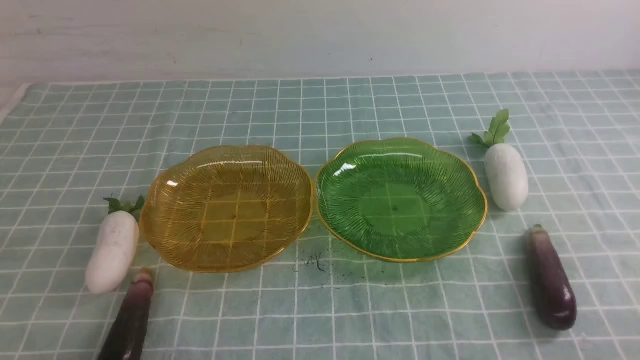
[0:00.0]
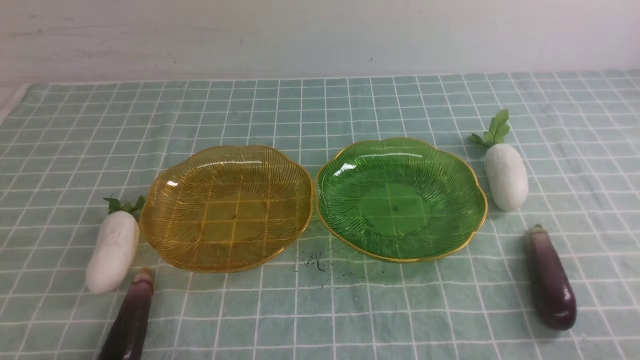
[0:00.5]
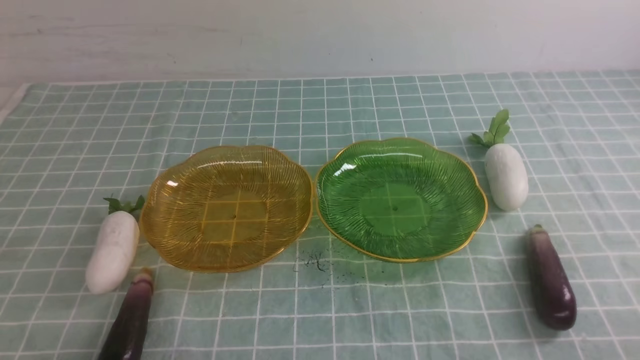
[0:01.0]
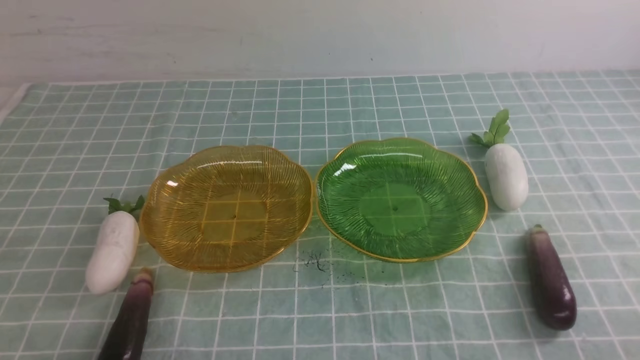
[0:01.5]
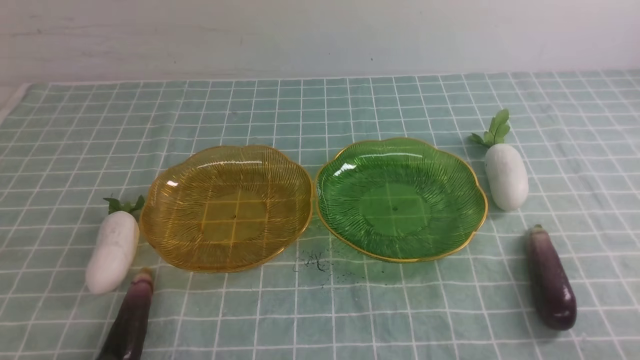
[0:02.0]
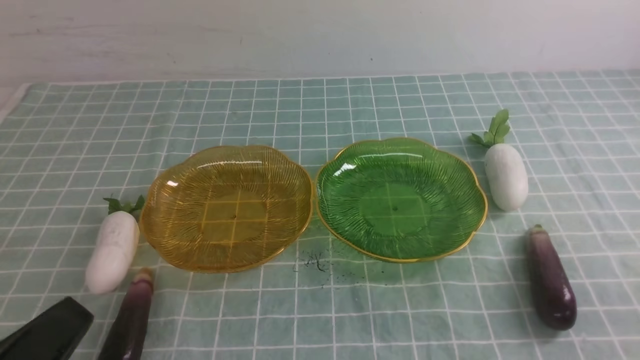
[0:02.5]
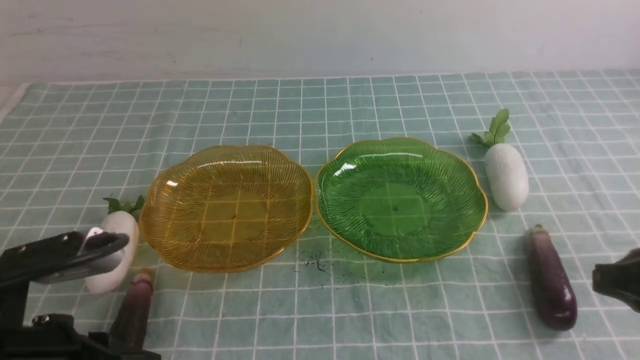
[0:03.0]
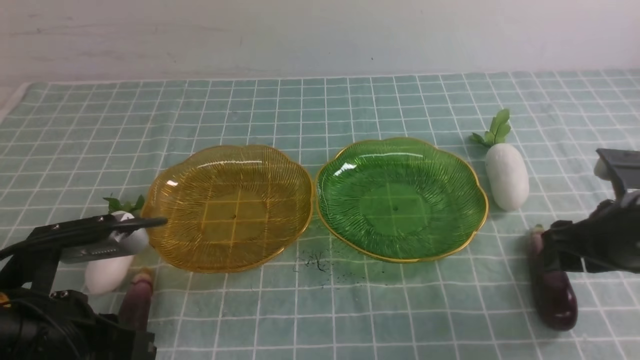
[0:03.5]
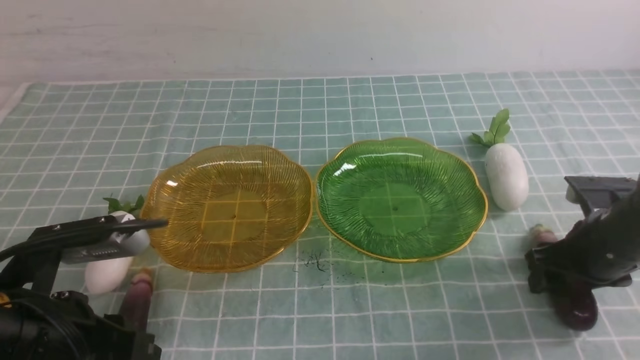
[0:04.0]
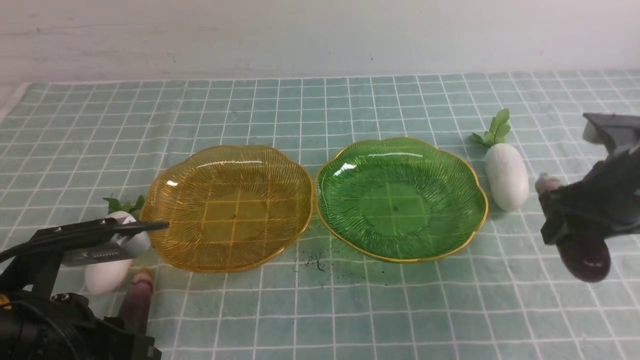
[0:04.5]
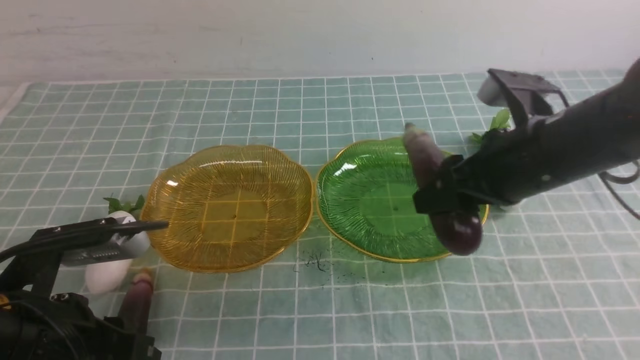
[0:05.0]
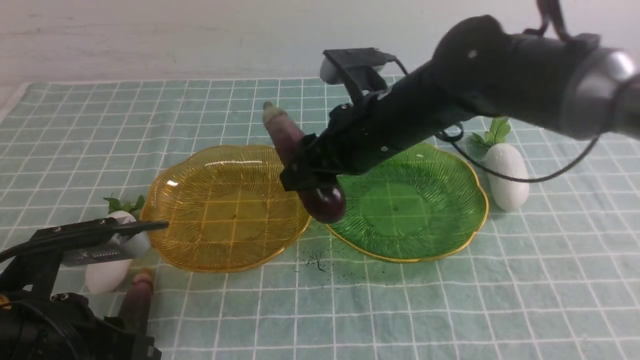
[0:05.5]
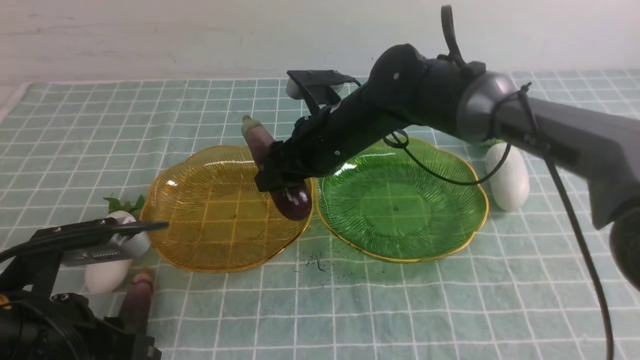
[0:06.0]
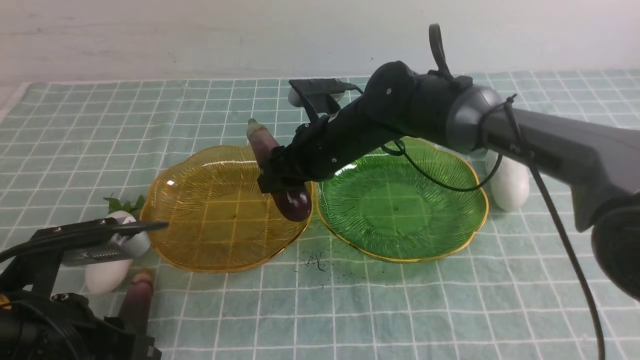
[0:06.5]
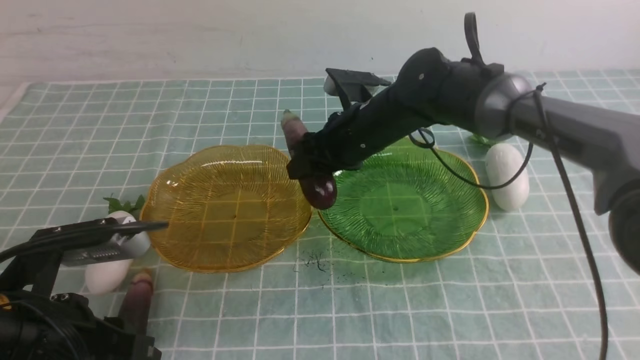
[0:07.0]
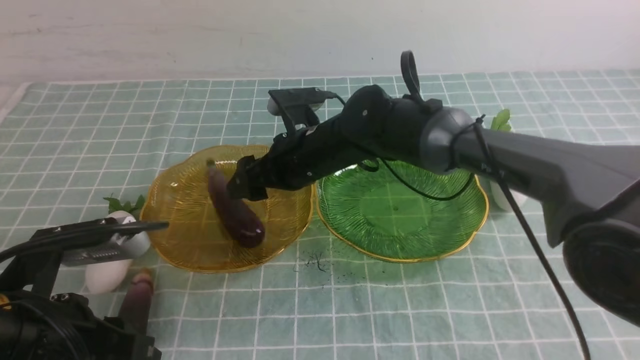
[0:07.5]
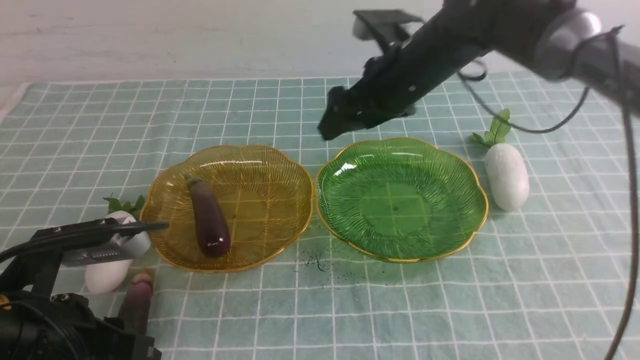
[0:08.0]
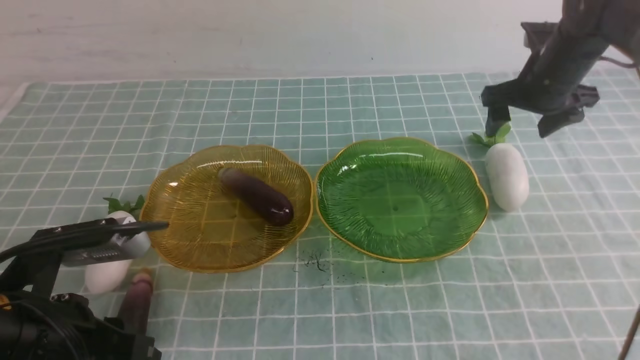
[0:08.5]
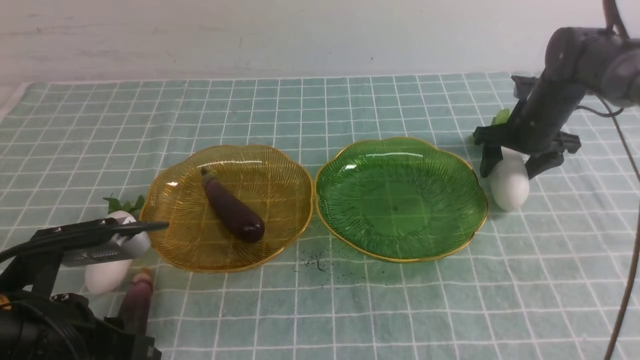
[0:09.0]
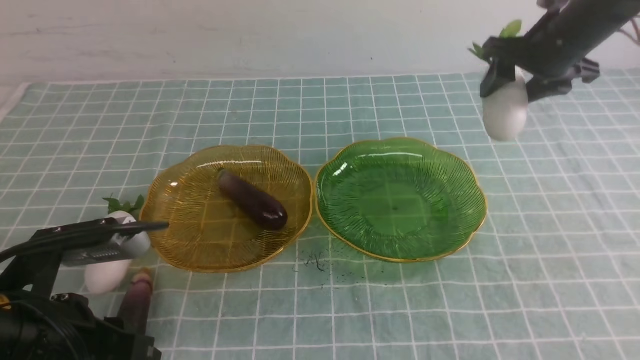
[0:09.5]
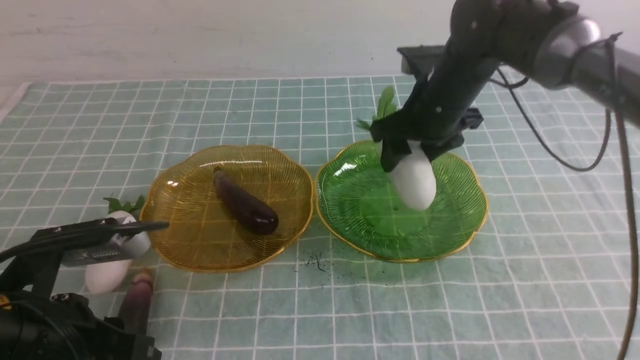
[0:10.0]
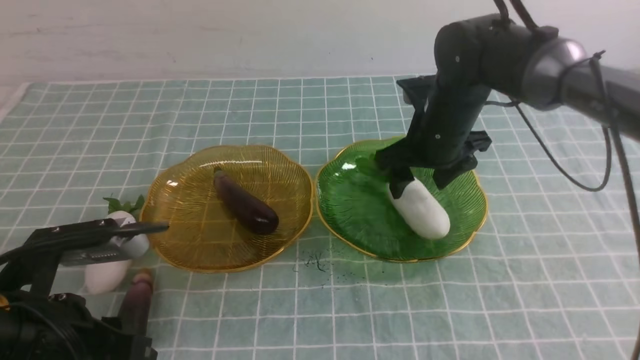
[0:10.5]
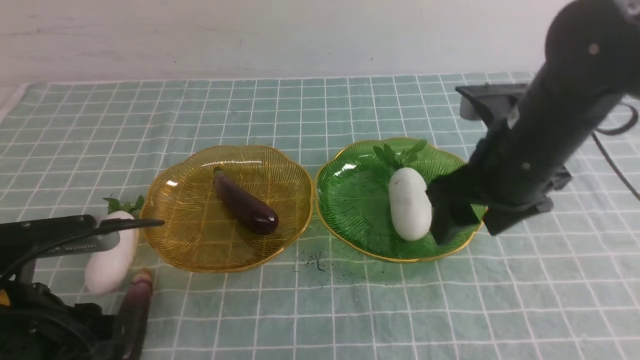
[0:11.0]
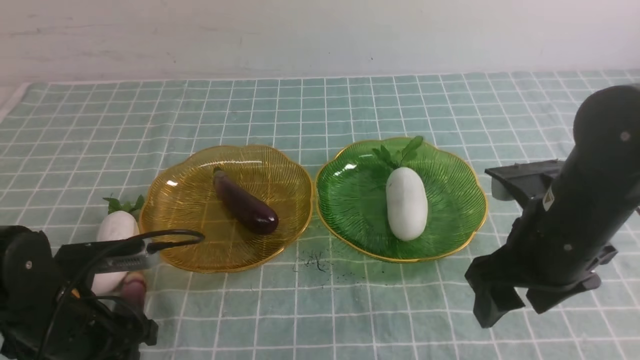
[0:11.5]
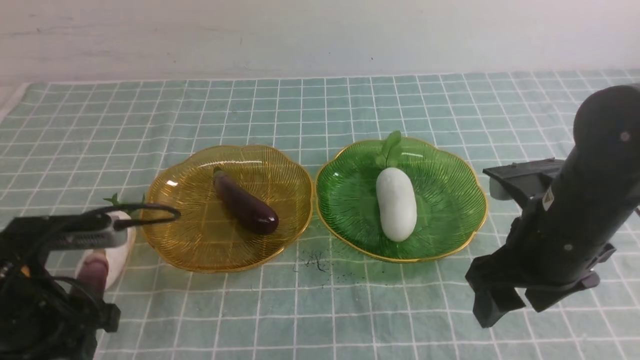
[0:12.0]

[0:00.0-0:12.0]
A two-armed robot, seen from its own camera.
Step, 0:00.0 to 0:07.5: use the right arm to grab an eggplant and put it into the left plate.
Step, 0:08.0 to 0:10.5: use the right arm to grab a radish and put it into the right plate.
0:02.0 to 0:04.0: The right gripper heads forward, covering roughly 25 cm, and opens. The left gripper heads forward and upward, covering some 10 cm.
0:04.0 to 0:06.0: The right gripper is displaced to the left by about 30 cm.
0:06.0 to 0:08.0: The right gripper travels to the right by roughly 10 cm, and opens its fingers.
0:08.0 to 0:10.0: The right gripper travels to the right and back again, about 15 cm each way.
0:10.0 to 0:12.0: The left gripper travels forward by about 5 cm, goes downward and returns, approximately 10 cm each way, and opens its fingers; the right gripper shifts about 20 cm backward.

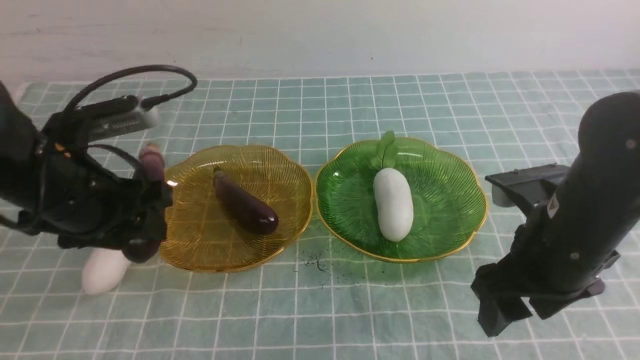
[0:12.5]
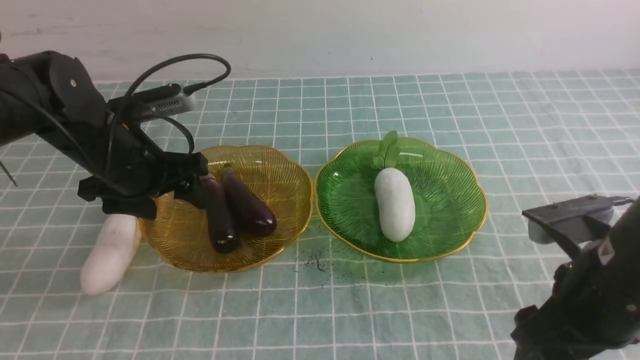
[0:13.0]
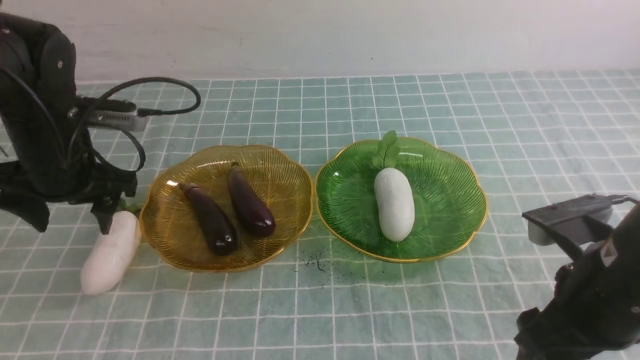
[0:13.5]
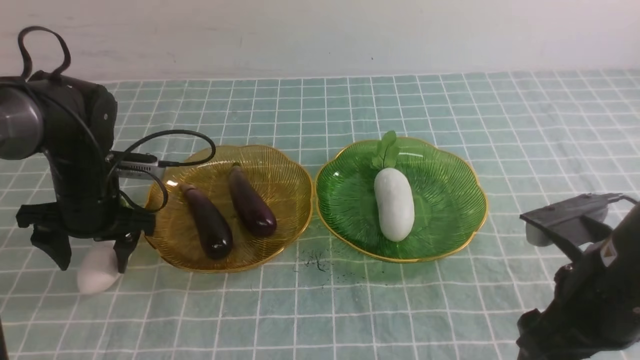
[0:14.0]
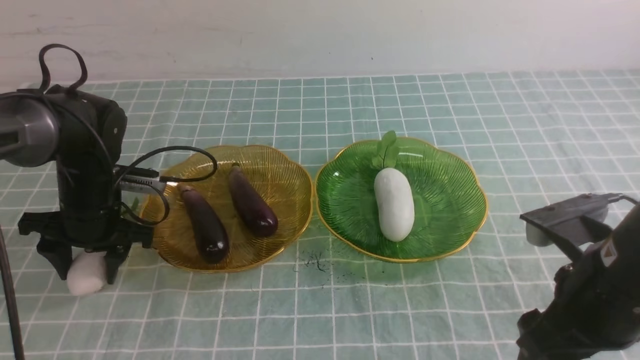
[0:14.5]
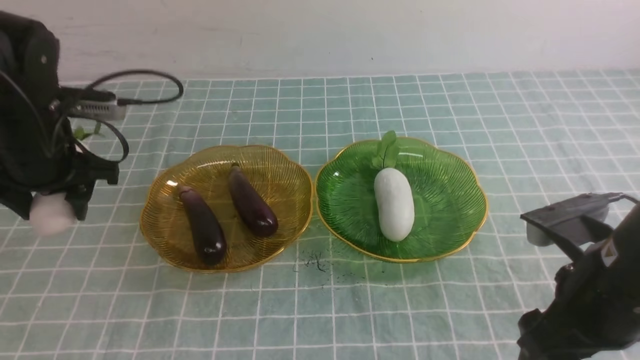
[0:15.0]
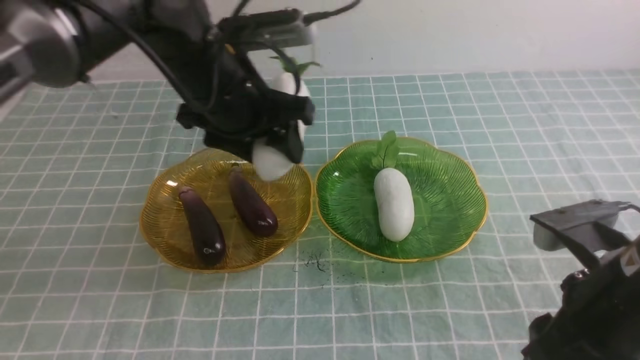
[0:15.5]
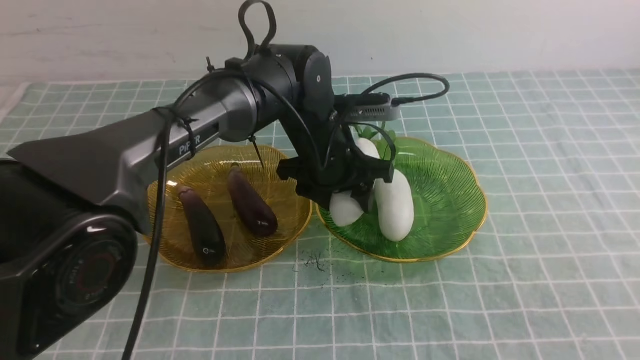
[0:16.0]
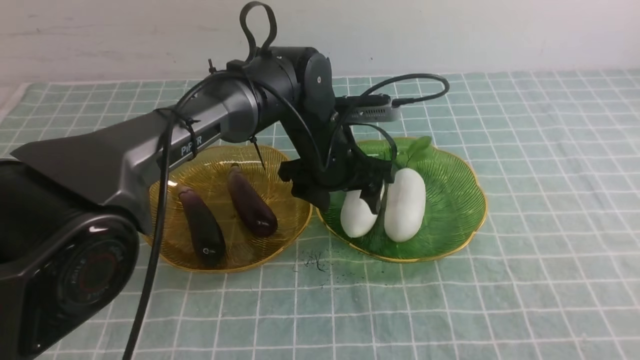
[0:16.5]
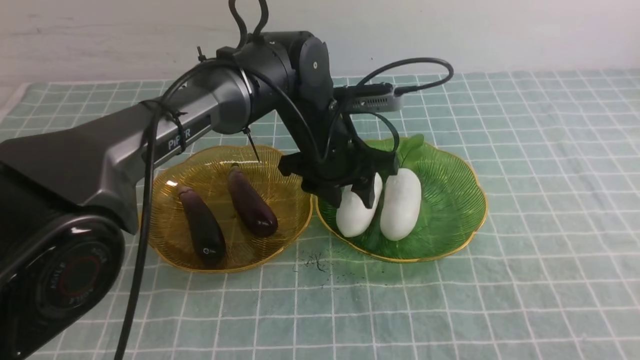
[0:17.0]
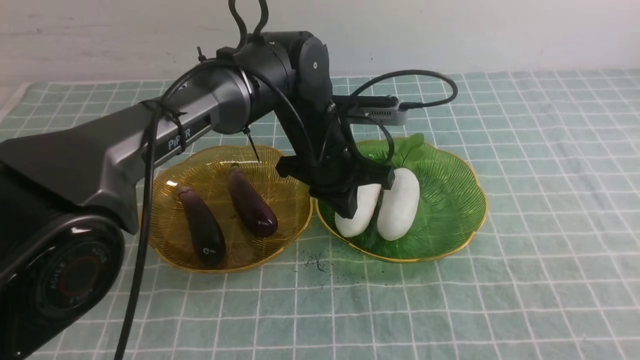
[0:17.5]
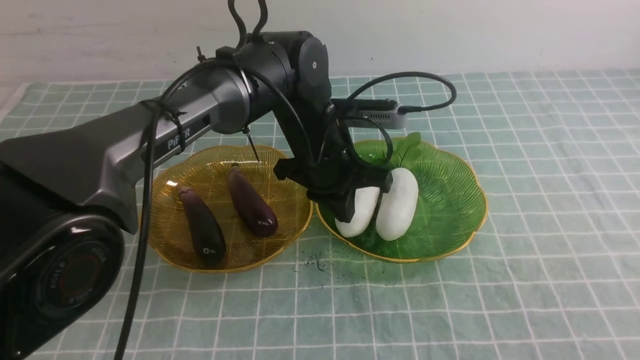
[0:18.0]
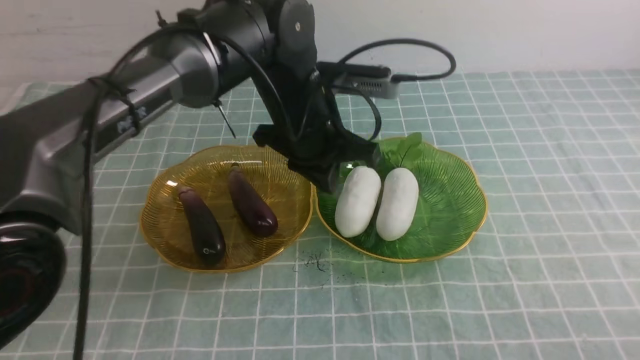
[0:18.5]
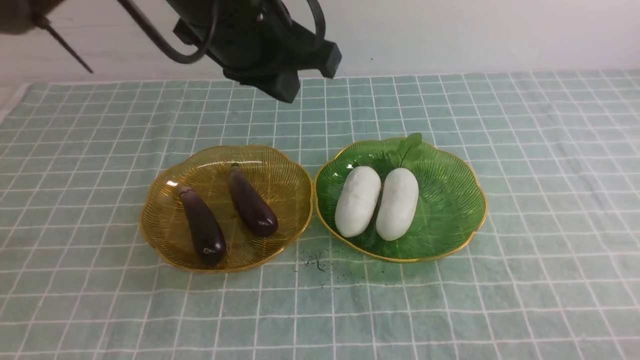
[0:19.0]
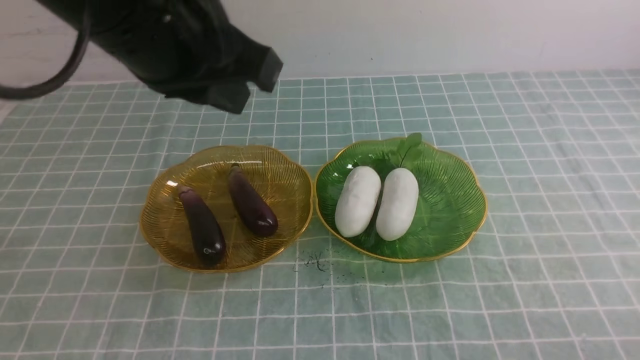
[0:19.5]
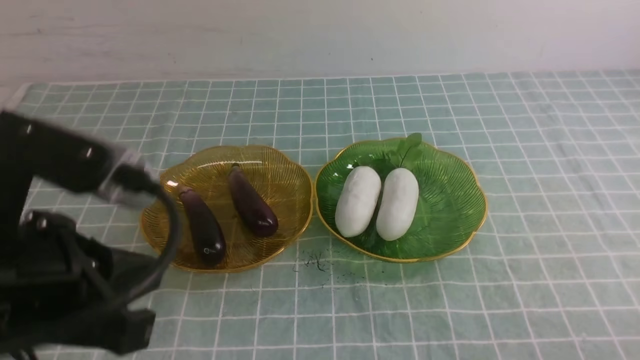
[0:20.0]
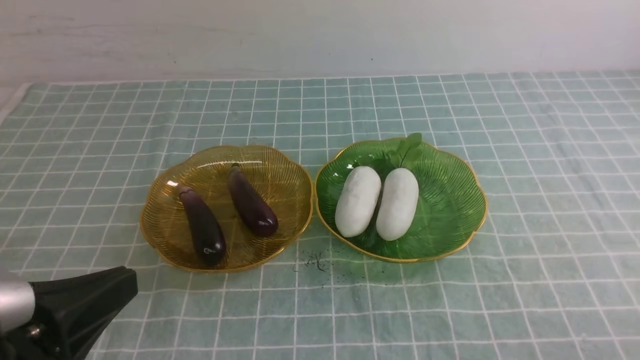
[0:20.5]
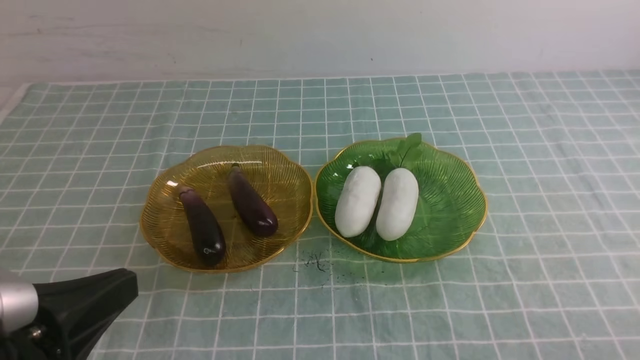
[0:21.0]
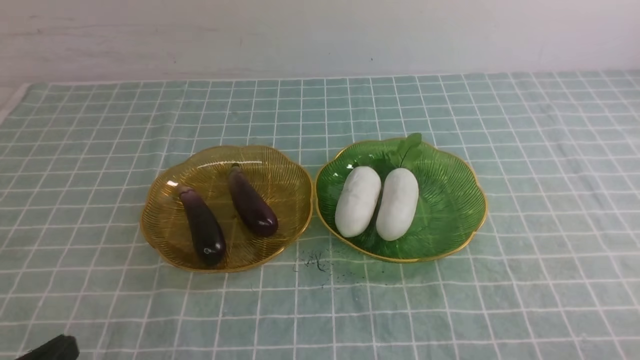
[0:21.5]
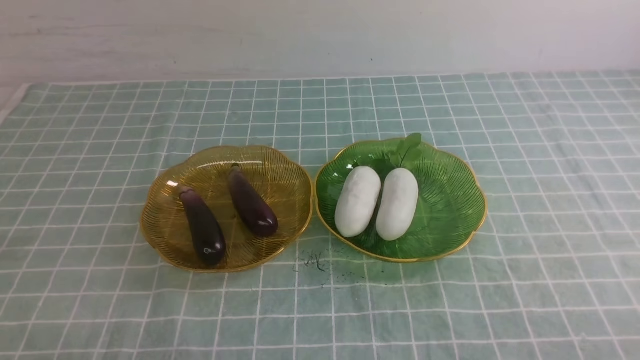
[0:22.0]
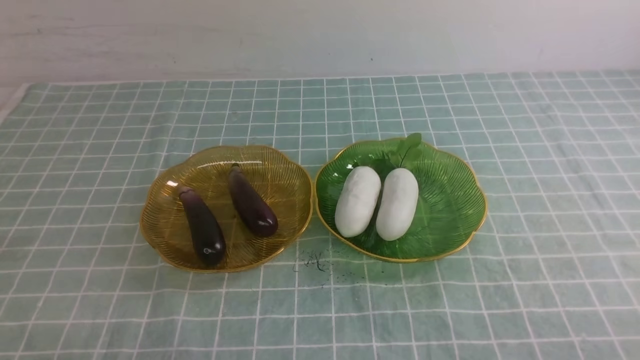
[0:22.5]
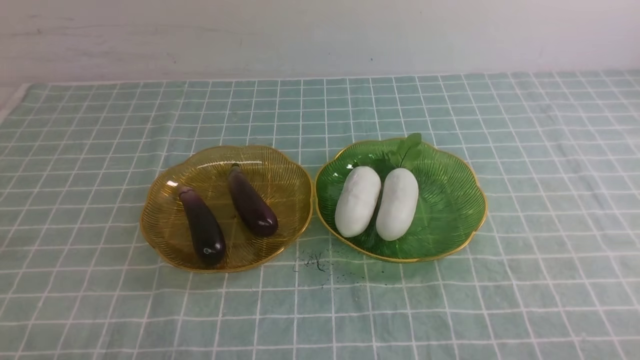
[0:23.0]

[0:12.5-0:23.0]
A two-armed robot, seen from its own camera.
Step, 0:13.5 to 0:16.5: use the left arm to grab a radish and put it into the right plate.
0:12.5 to 0:14.5: The left gripper is displaced downward and forward by some 15 cm.
0:14.5 to 0:16.5: The left gripper goes about 25 cm to the right. The right gripper is displaced backward and to the right by approximately 20 cm, and closes up.
0:16.5 to 0:19.0: The left gripper travels upward and backward by roughly 20 cm, and closes; the right gripper shifts approximately 15 cm downward.
0:19.0 to 0:21.0: The left gripper shifts approximately 30 cm backward, to the left and downward.
0:21.0 to 0:23.0: The left gripper heads downward, covering roughly 10 cm.
